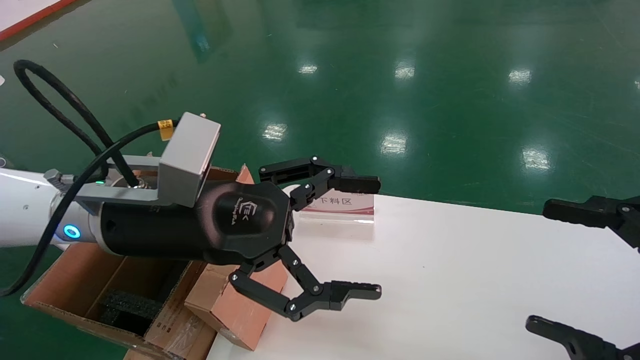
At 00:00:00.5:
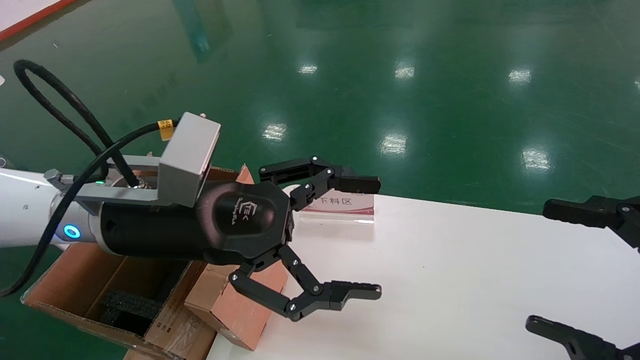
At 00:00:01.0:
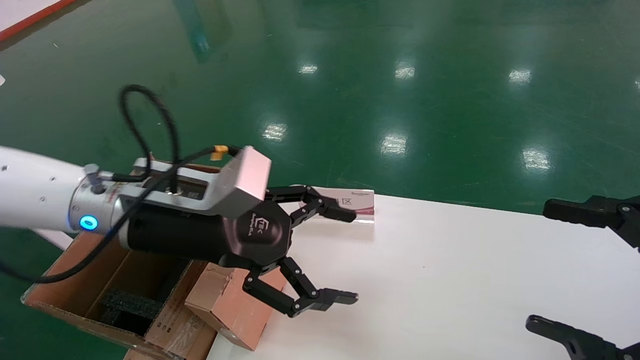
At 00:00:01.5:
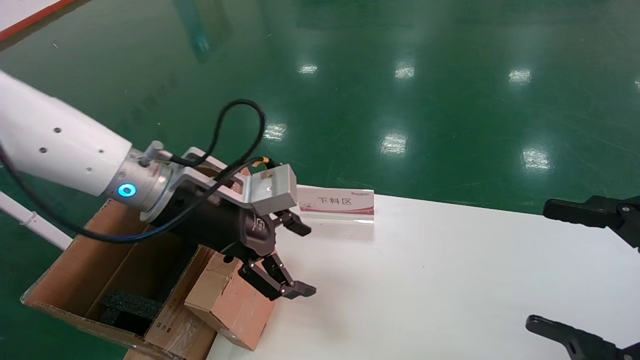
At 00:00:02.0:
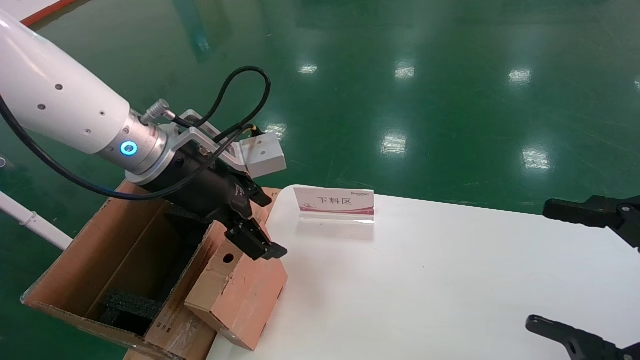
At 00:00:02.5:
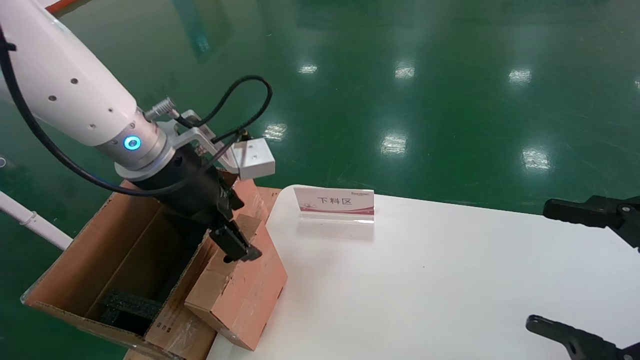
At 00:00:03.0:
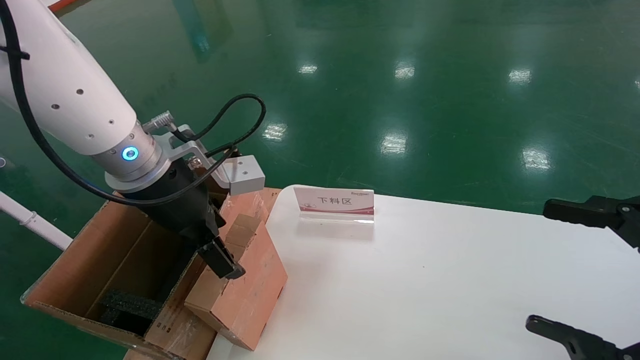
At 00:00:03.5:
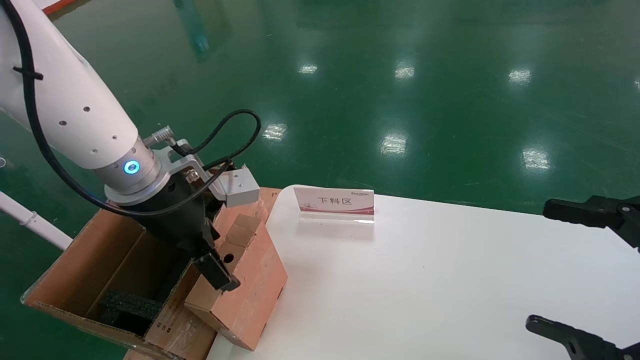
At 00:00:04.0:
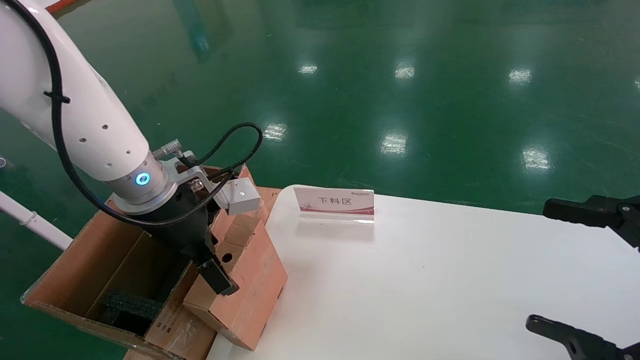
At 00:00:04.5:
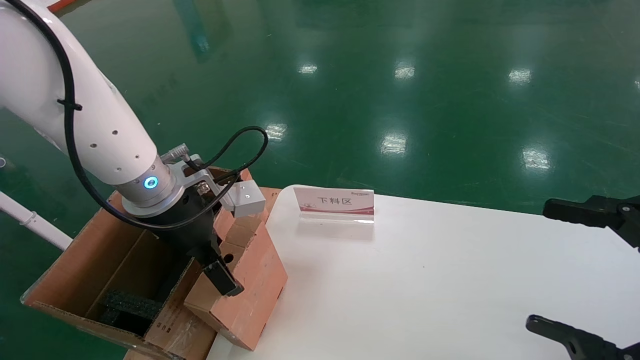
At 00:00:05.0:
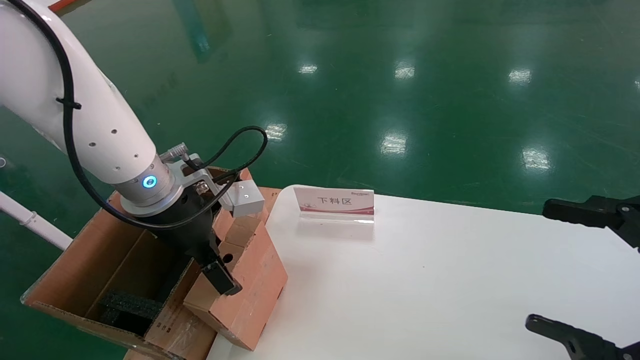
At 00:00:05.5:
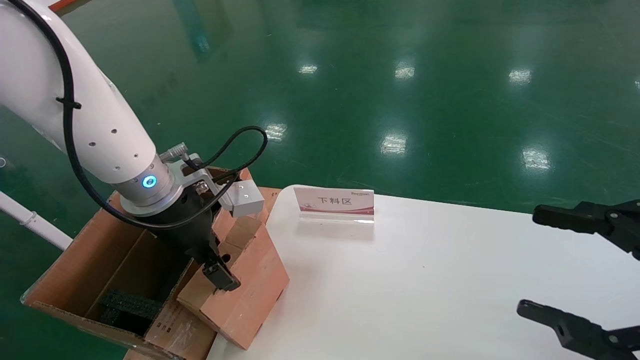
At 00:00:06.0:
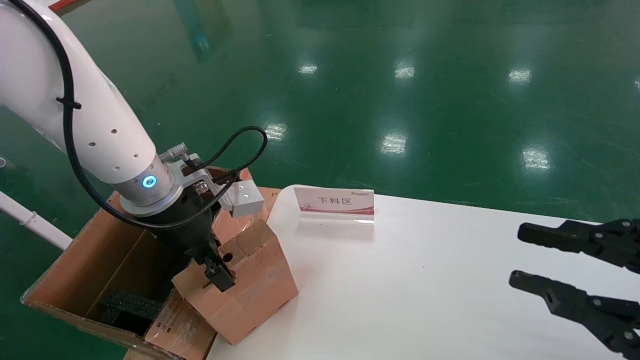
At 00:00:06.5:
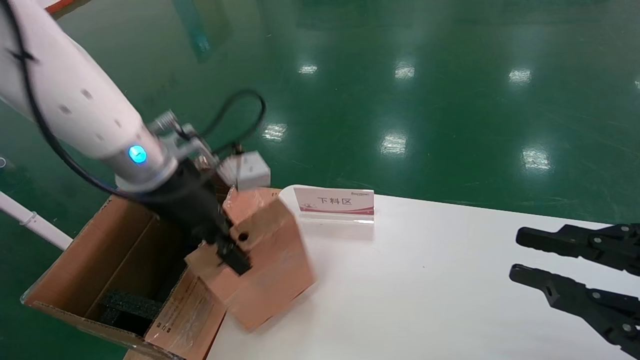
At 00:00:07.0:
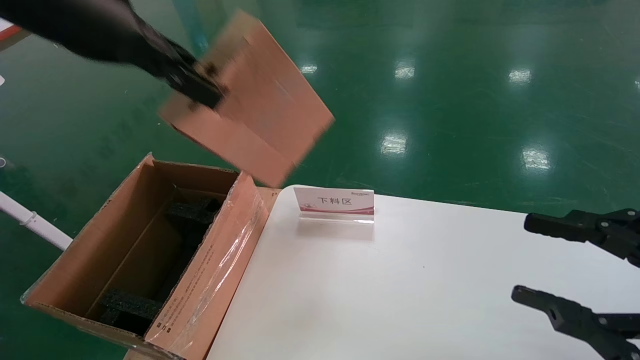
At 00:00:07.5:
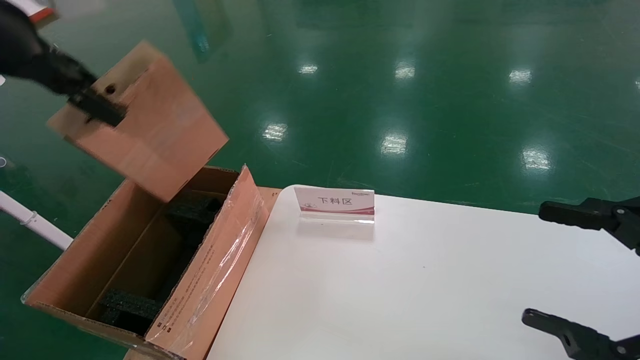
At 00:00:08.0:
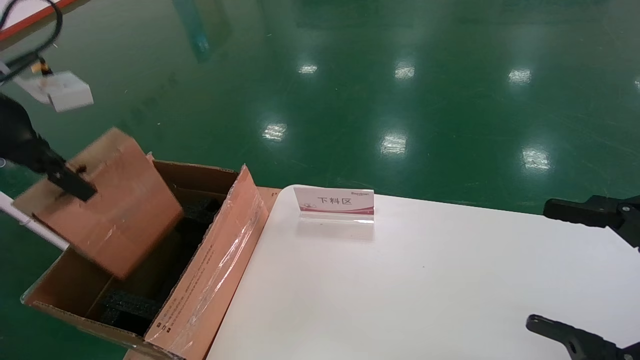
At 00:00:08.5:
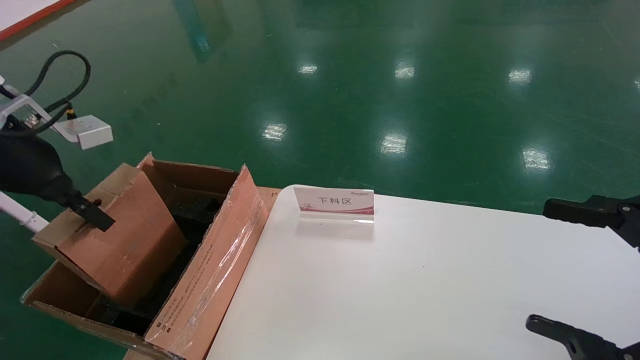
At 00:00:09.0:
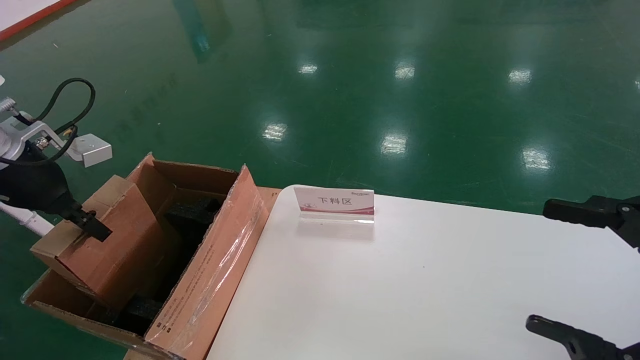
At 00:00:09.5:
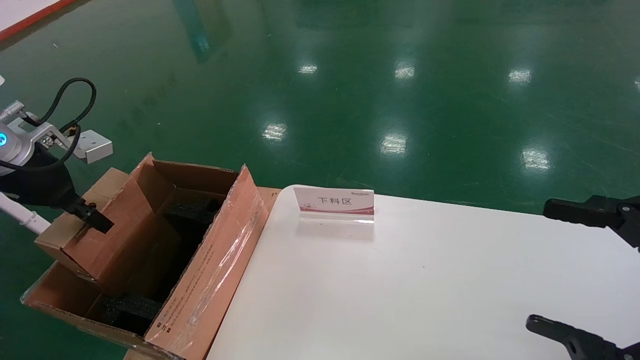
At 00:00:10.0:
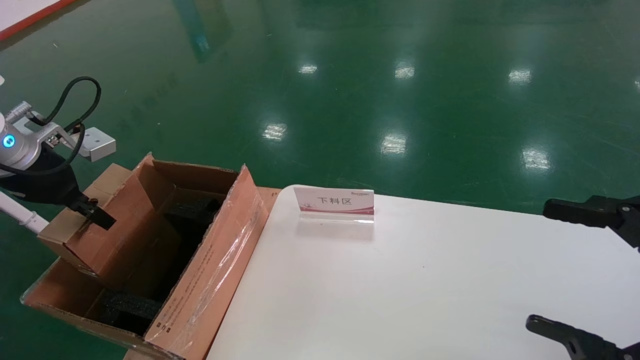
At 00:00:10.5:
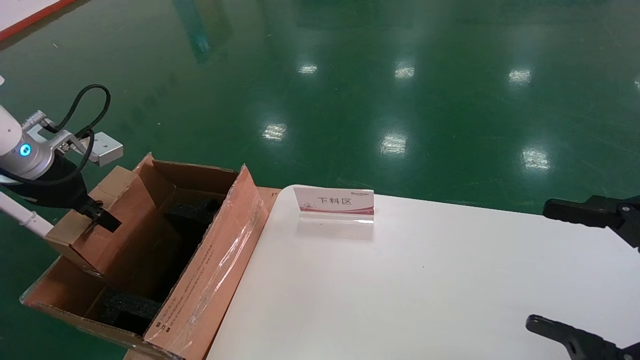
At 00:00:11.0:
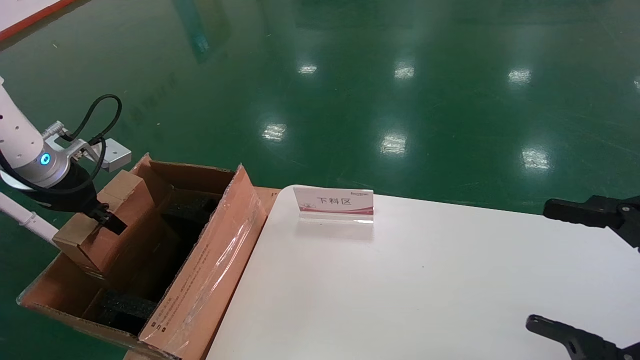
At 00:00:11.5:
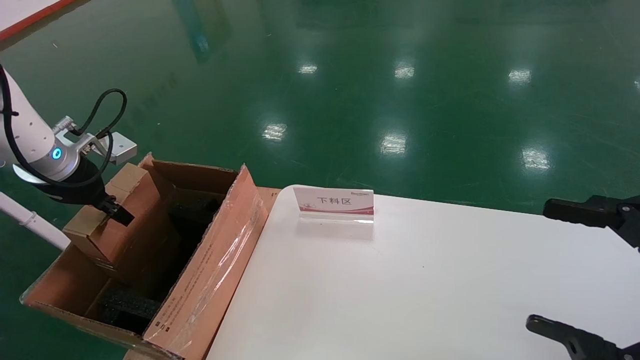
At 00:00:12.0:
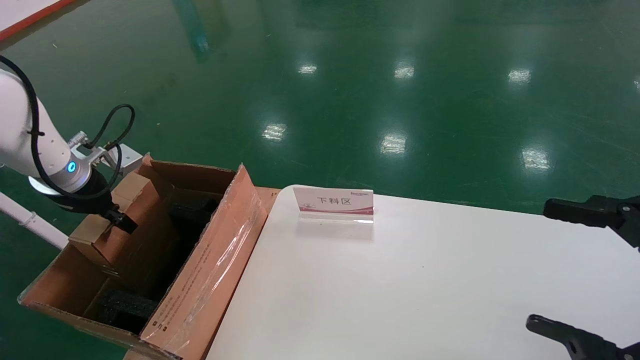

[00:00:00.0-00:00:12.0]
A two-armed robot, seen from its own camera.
Task of the whole recording: pick up the small cardboard box and load it into the large cardboard box.
Step, 00:00:01.0 to 00:00:06.0: Pick up the mouse and power cord box.
00:00:00.0 to 00:00:02.0: The left gripper heads forward, covering some 5 cm.
00:00:04.0 to 00:00:06.0: The left gripper closes its fingers. The right gripper closes up.
00:00:06.0 to 00:00:08.0: The right gripper opens its fingers; the left gripper heads to the left and upward, covering approximately 20 cm.
00:00:08.0 to 00:00:10.0: The left gripper shifts some 10 cm downward.
00:00:10.0 to 00:00:12.0: The left gripper shifts about 5 cm downward and forward.

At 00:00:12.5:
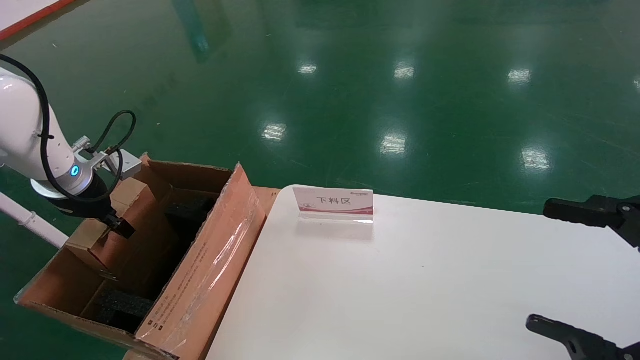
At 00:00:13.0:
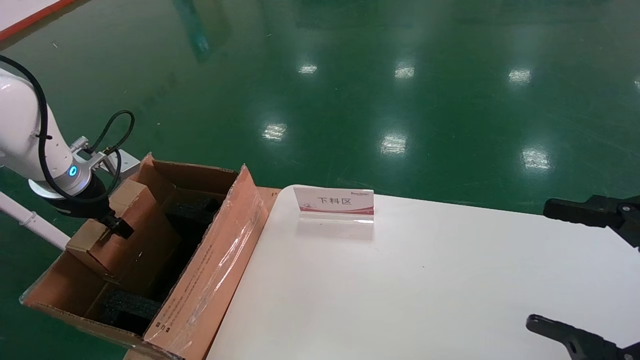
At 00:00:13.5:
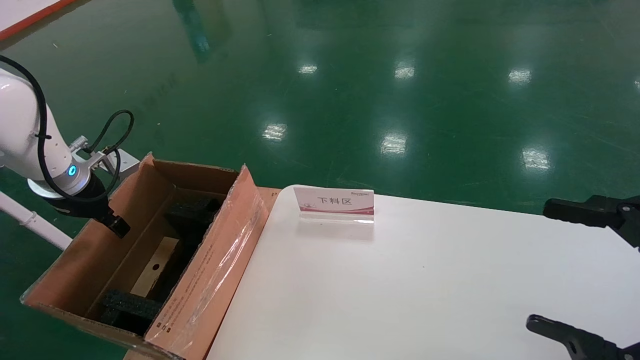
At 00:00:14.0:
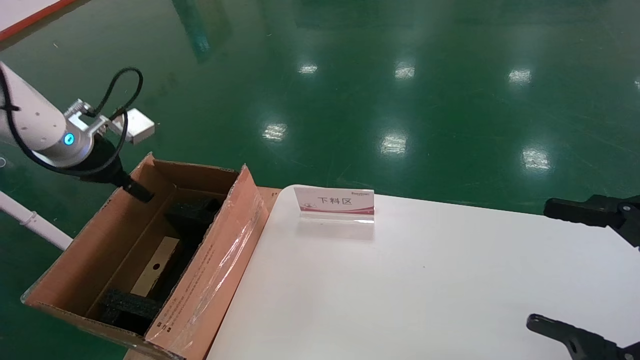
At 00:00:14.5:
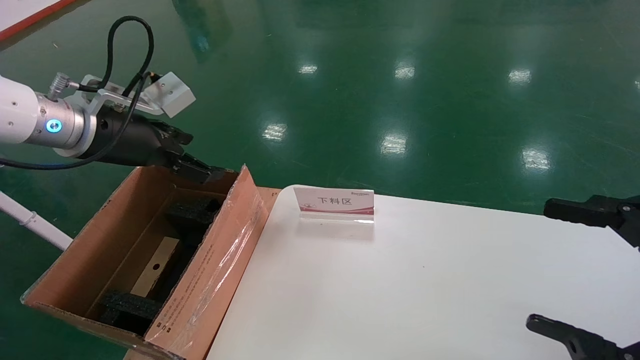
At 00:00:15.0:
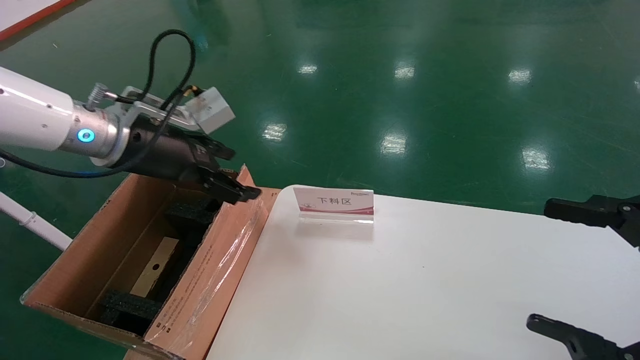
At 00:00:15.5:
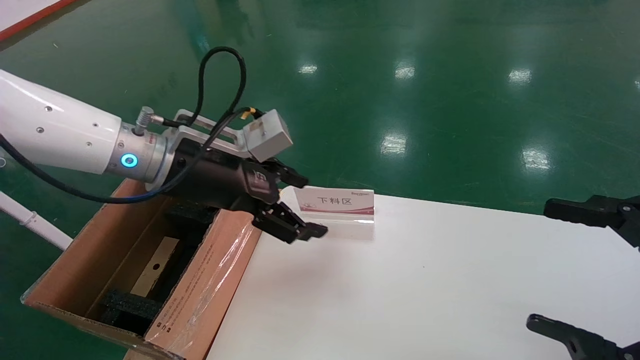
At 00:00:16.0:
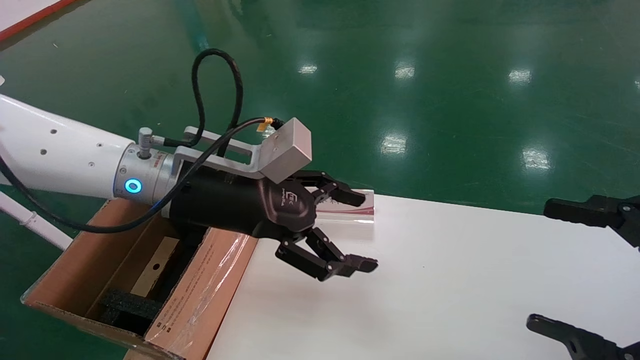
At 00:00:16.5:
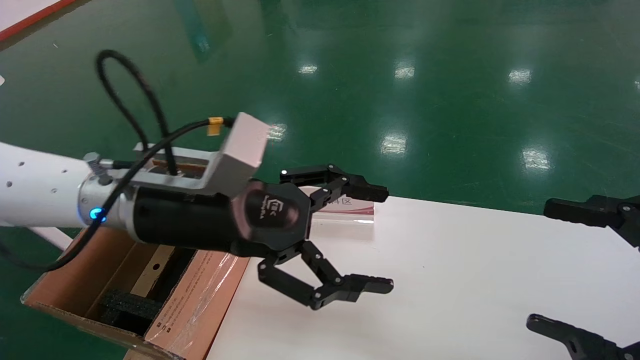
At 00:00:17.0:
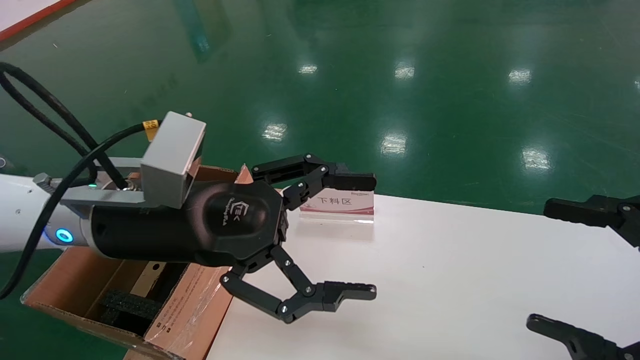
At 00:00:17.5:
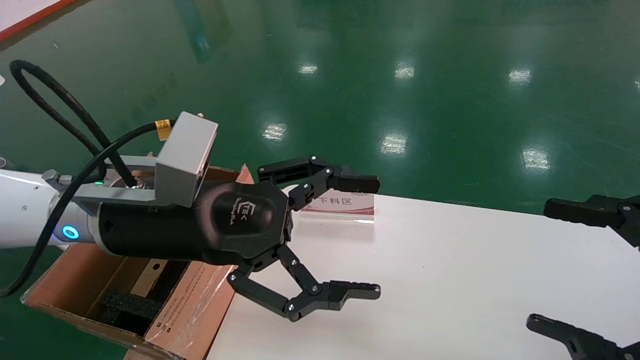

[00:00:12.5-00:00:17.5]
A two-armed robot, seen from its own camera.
Task of the whole recording: pick up the small cardboard box and load it into the large cardboard box.
00:00:12.5 to 00:00:15.0: The left gripper goes some 20 cm to the right and upward, and opens its fingers.
00:00:15.0 to 00:00:17.5: The left gripper shifts about 10 cm to the right and backward.
